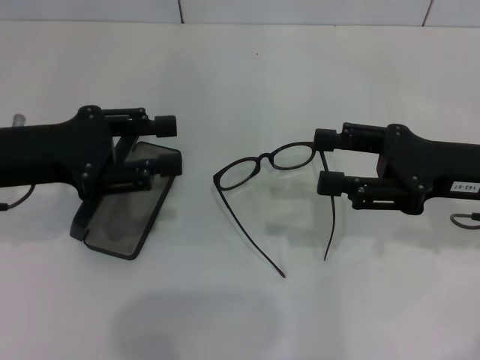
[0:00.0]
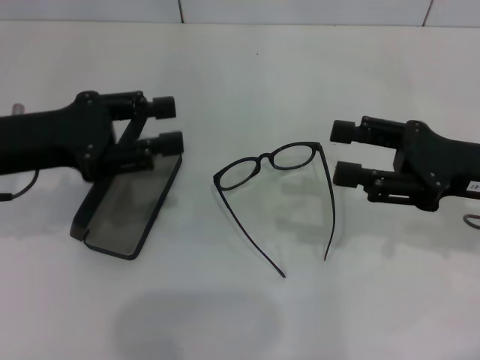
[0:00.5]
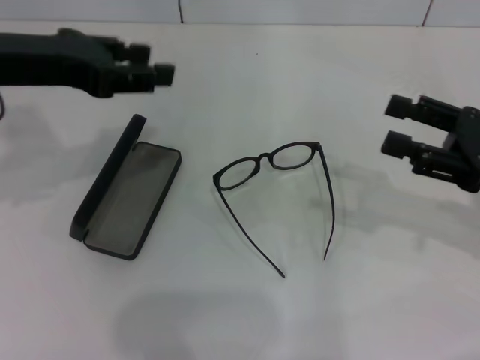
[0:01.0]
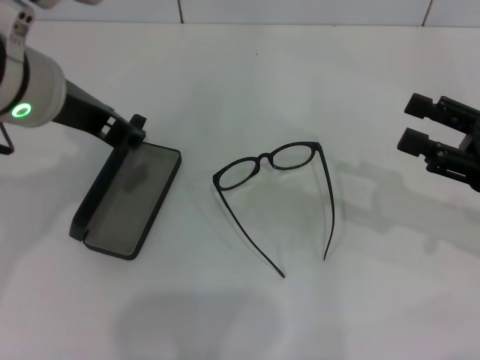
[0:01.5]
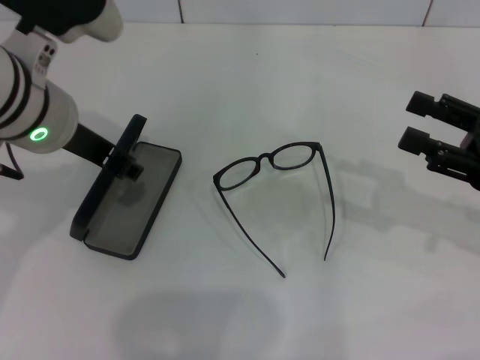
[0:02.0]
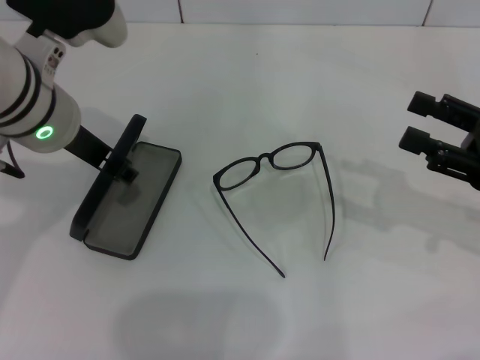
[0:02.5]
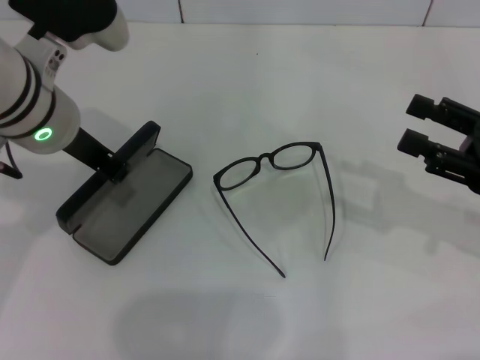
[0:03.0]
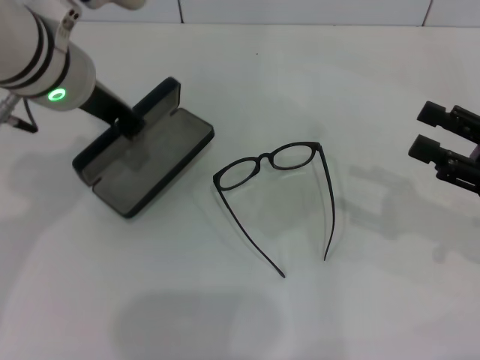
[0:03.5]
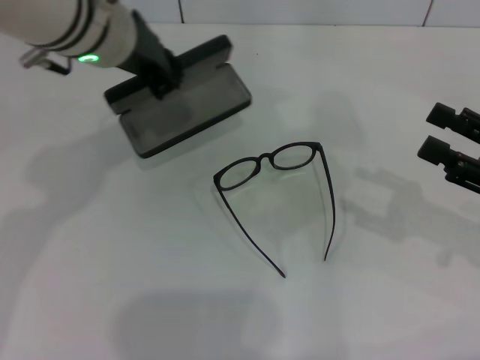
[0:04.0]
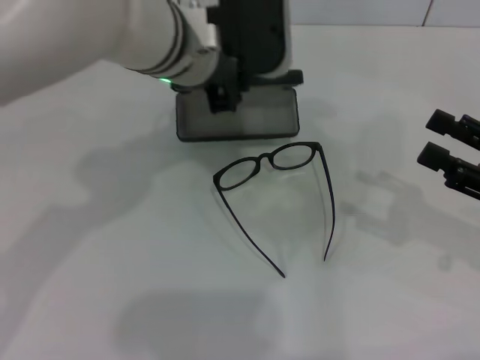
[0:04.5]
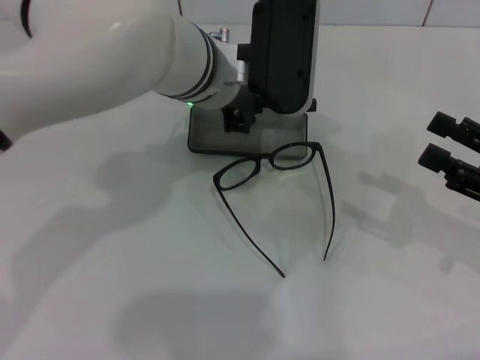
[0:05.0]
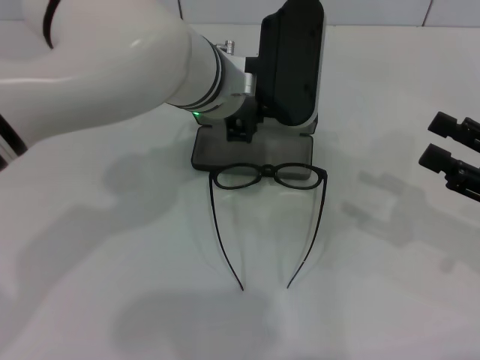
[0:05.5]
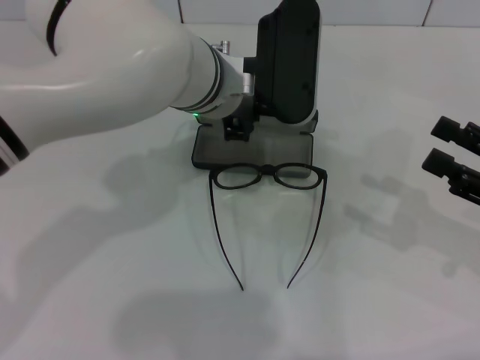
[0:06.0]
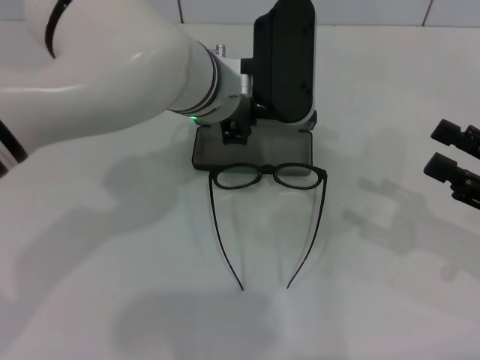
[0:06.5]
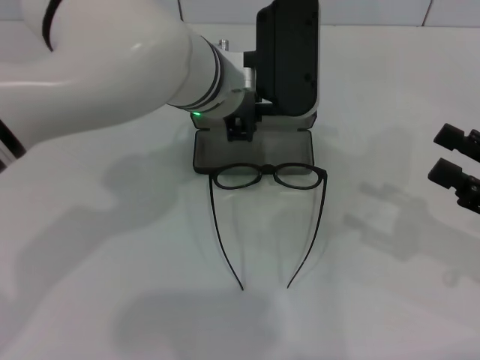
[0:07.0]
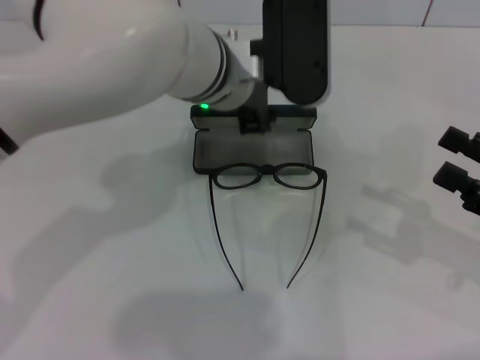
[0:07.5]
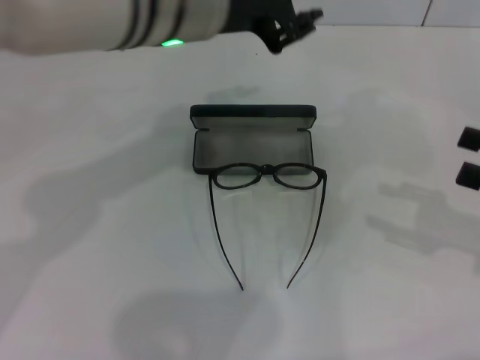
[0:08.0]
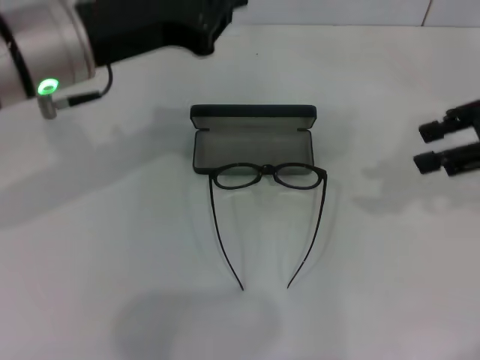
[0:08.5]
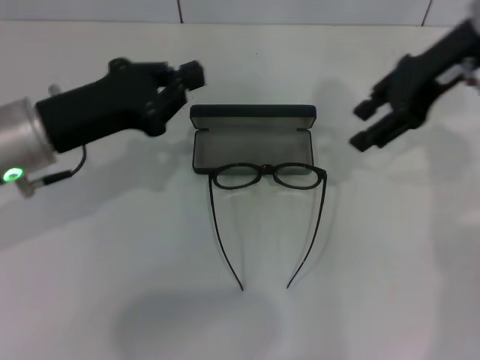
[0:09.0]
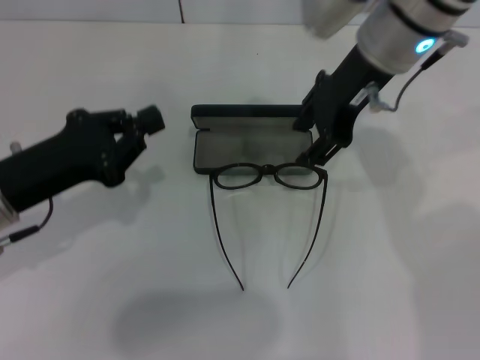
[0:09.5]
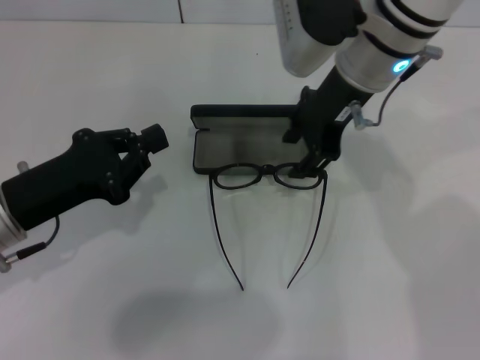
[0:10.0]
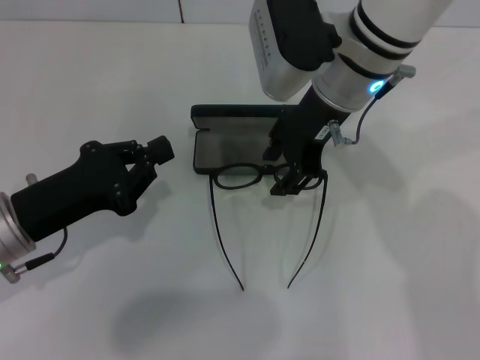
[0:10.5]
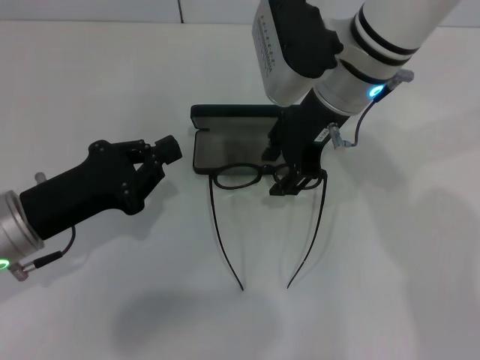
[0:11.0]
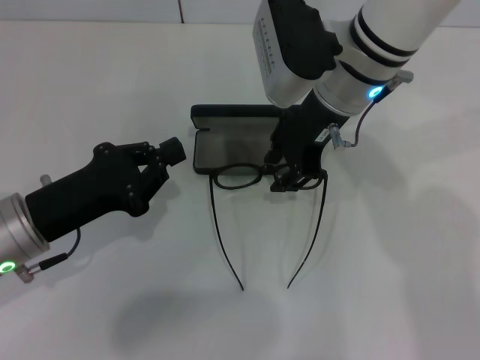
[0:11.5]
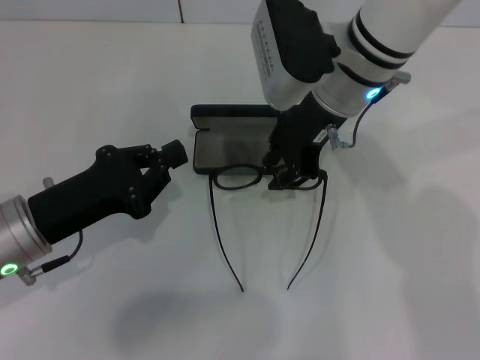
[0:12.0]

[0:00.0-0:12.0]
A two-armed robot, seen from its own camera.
Step, 0:00.0 to 0:03.0: Grab the glasses case with your left hand.
Step, 0:03.5 to 0:07.0: Place the glasses case in the center of the table with your left hand.
0:00.0 to 0:02.0: The right gripper goes roughly 5 cm to the right. The left gripper moves to the right and upward, about 10 cm.
0:02.0 to 0:04.0: The left gripper moves some 5 cm, and closes up.
0:04.0 to 0:06.0: The left gripper shifts some 10 cm to the right and downward.
0:06.0 to 0:08.0: The left gripper is displaced upward by some 10 cm.
0:08.0 to 0:10.0: The left gripper is displaced to the left, downward and backward by some 25 cm, and closes. The right gripper is displaced to the left and forward by approximately 30 cm.
0:10.0 to 0:12.0: The grippers move only a little.

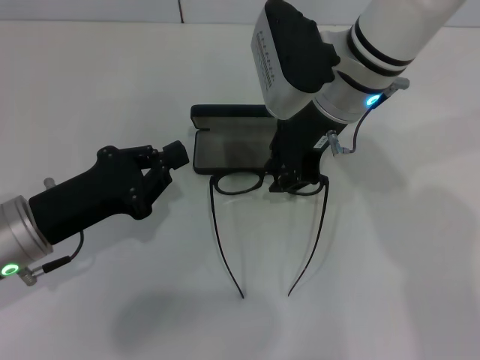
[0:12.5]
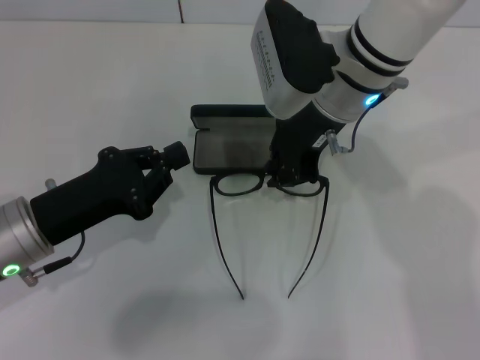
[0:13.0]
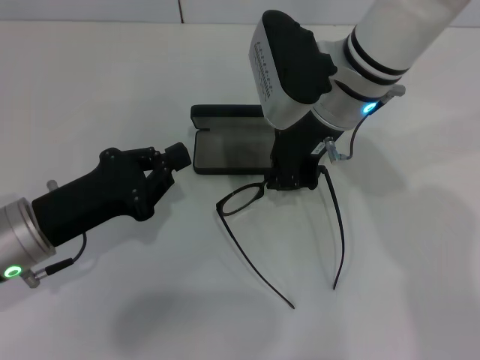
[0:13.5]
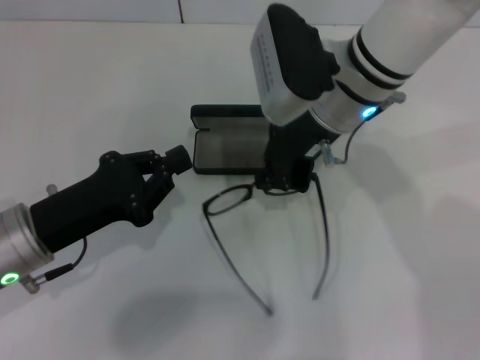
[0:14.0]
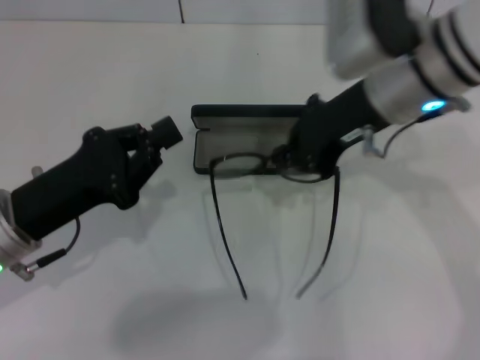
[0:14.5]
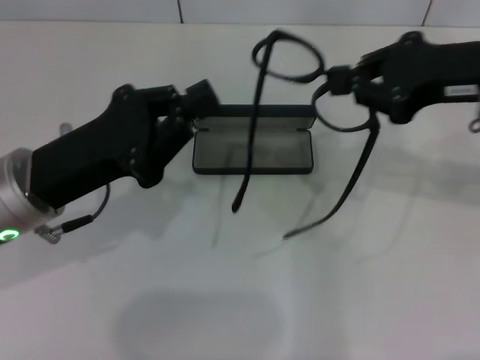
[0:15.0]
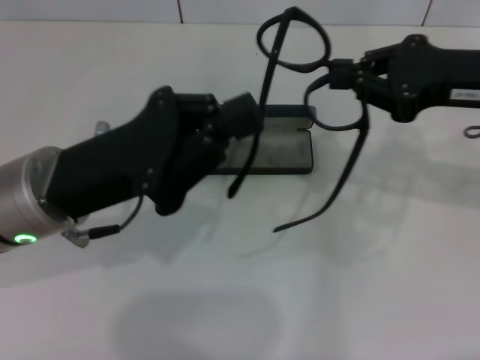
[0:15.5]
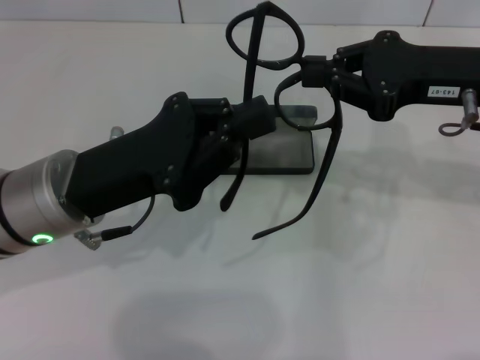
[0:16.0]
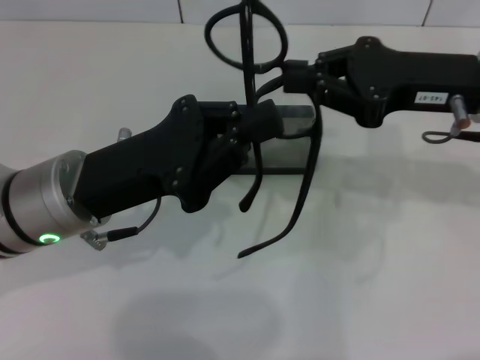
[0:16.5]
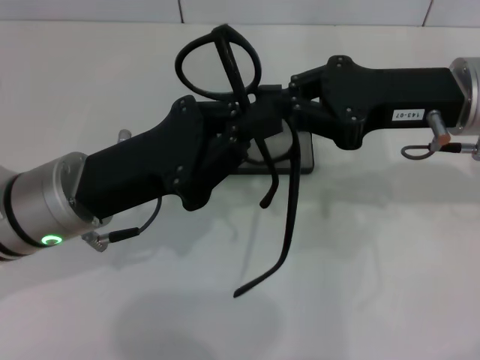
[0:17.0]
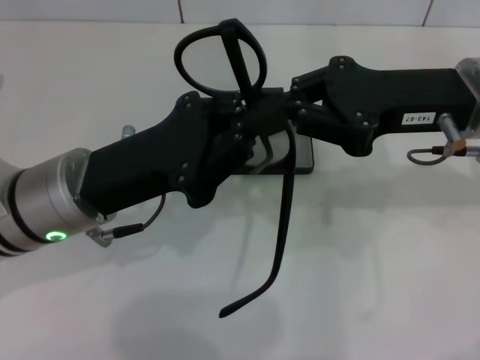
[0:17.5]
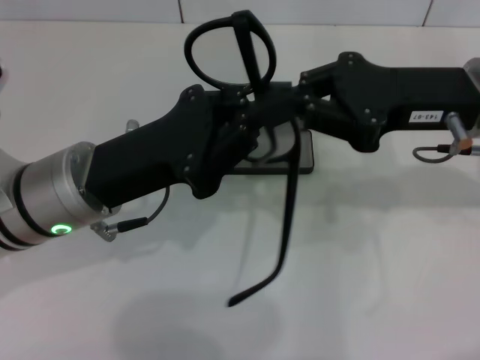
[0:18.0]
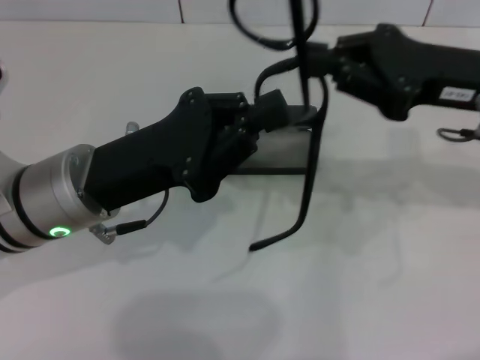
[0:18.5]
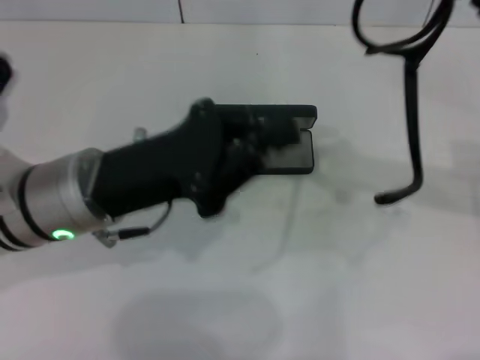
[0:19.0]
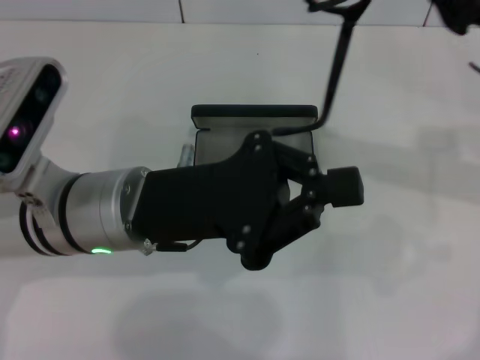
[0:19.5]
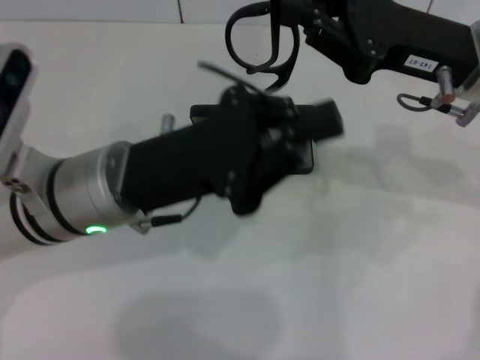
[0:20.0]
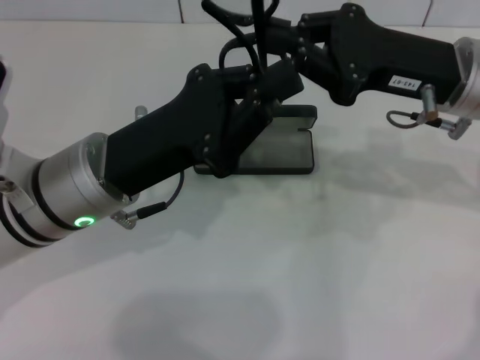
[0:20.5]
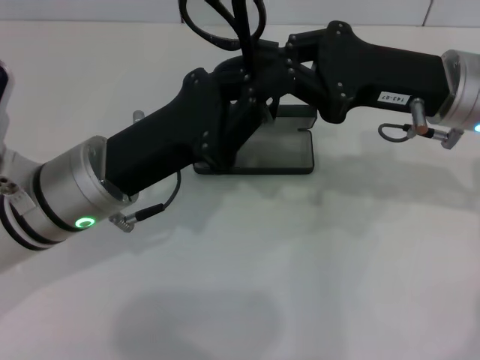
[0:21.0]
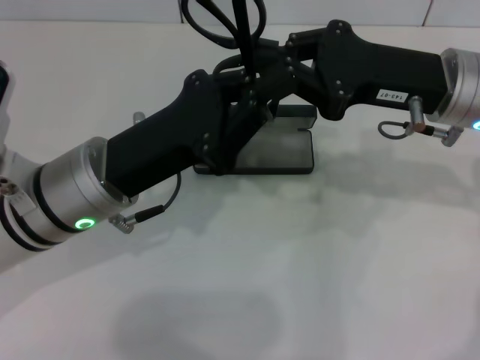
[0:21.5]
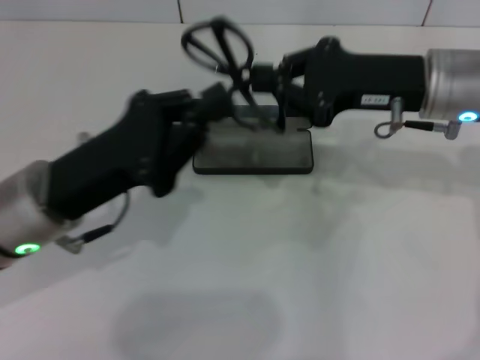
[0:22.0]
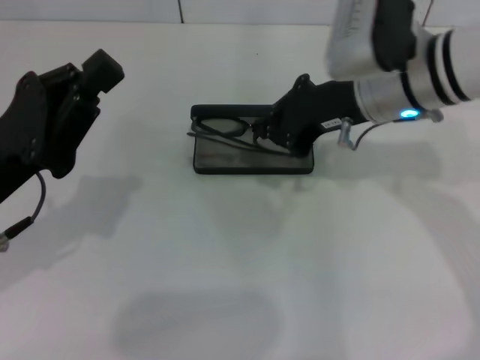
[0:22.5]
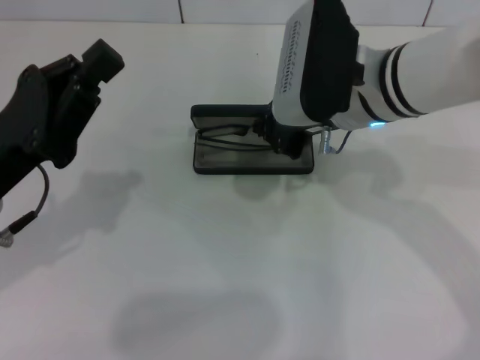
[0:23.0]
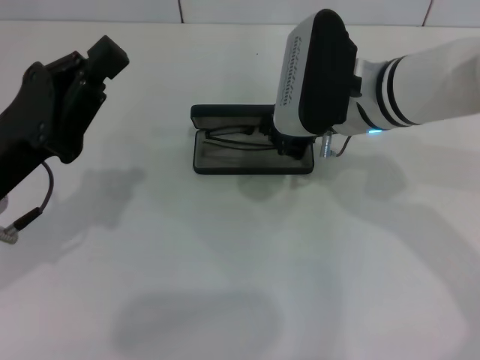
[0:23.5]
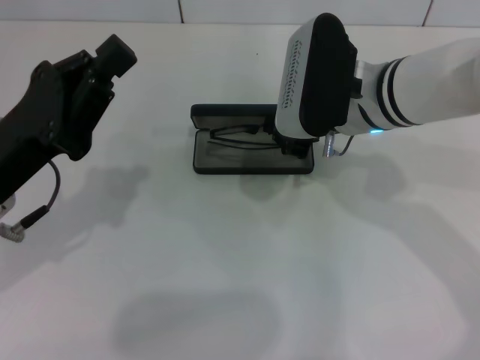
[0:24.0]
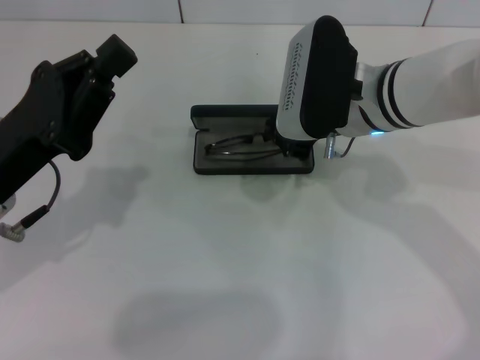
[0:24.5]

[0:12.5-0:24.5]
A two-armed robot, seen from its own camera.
Step, 0:14.0 to 0:21.0: Lift the glasses with your right hand.
0:12.5 to 0:14.5: The right gripper is displaced to the right by roughly 5 cm, and closes up.
0:14.5 to 0:16.5: The grippers both shift to the right by some 5 cm.
0:16.5 to 0:18.5: The grippers move only a little.
0:20.5 to 0:22.5: The left gripper goes about 10 cm to the left, while the right gripper goes roughly 5 cm to the left.
0:22.5 to 0:24.5: The grippers stay close to where they were, moving slightly.

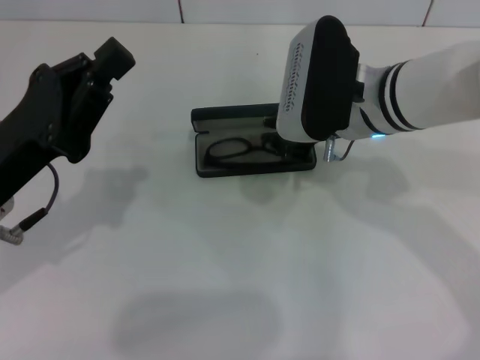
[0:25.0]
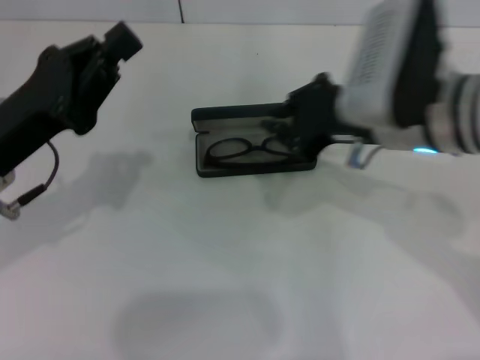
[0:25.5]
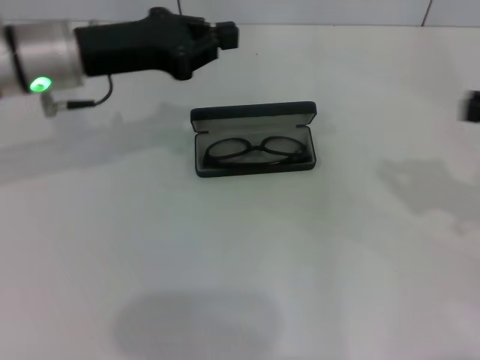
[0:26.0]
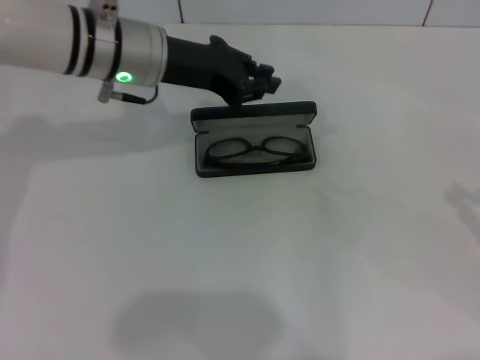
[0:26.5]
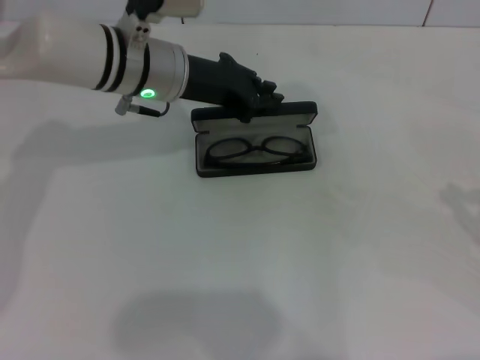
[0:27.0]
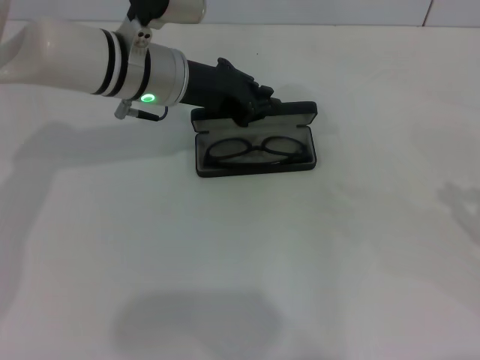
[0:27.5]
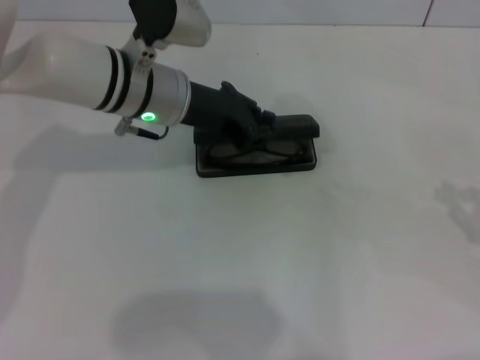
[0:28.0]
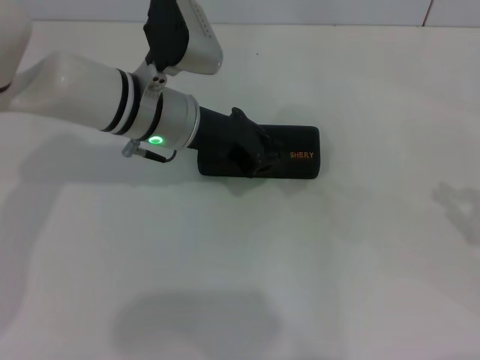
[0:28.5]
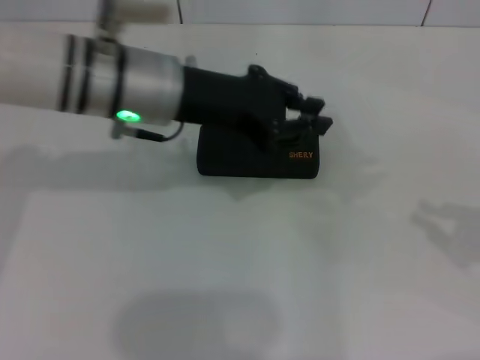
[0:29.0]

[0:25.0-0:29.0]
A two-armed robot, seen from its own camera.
Step, 0:25.0 to 0:28.0: Close the glasses case with your left hand.
0:25.0 to 0:27.0: The right gripper is displaced to the right and backward by about 35 cm; the left gripper heads forward and to the right, covering about 20 cm.
0:27.0 to 0:29.0: The left gripper travels backward by roughly 5 cm.
